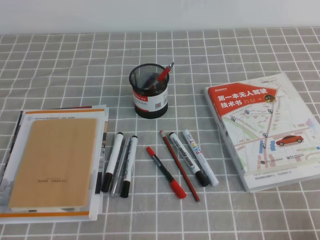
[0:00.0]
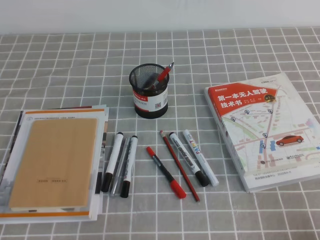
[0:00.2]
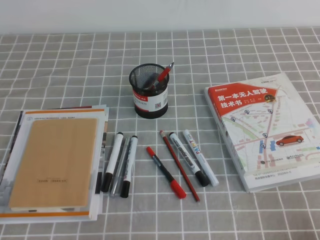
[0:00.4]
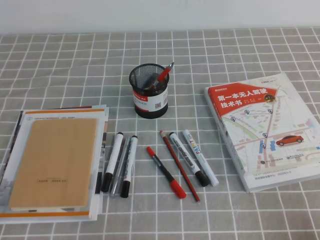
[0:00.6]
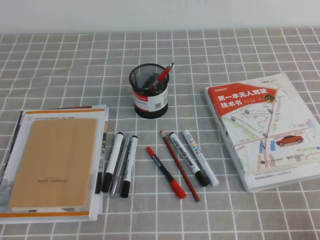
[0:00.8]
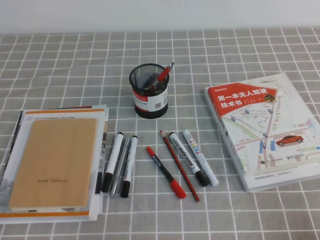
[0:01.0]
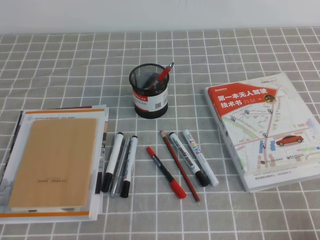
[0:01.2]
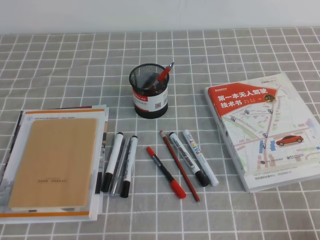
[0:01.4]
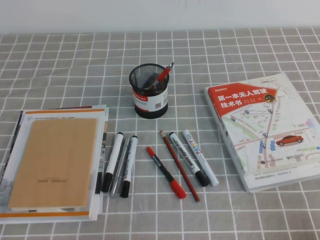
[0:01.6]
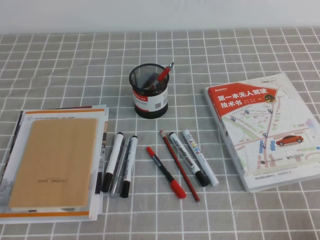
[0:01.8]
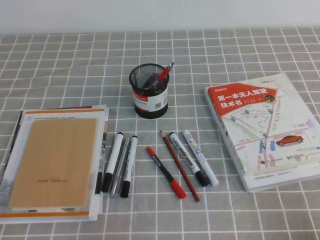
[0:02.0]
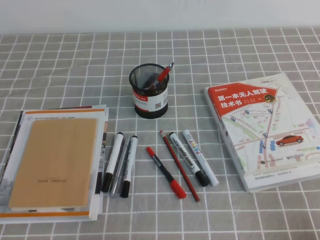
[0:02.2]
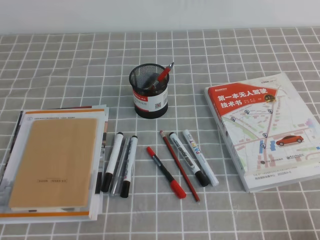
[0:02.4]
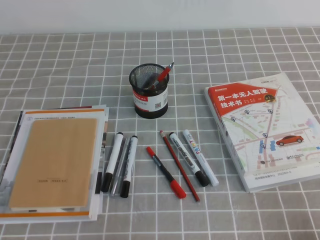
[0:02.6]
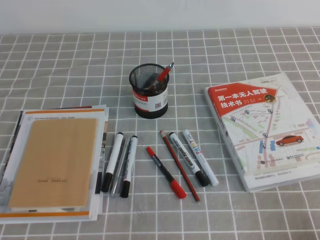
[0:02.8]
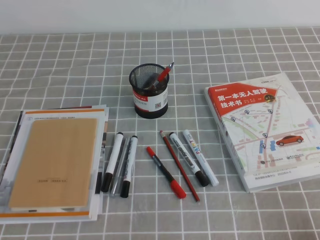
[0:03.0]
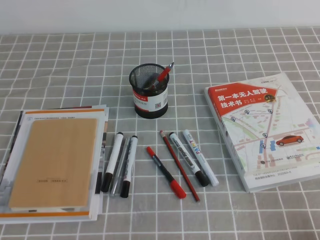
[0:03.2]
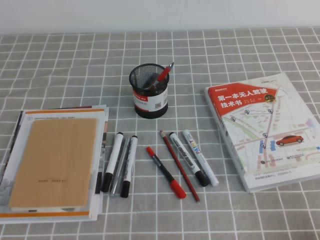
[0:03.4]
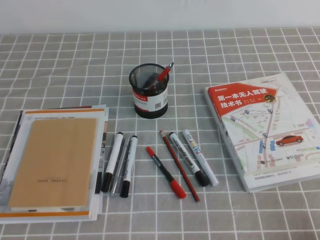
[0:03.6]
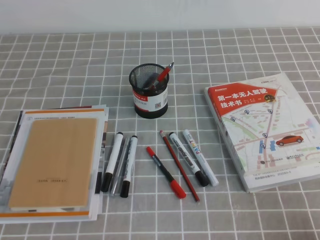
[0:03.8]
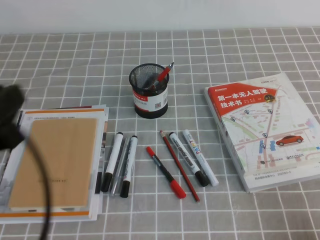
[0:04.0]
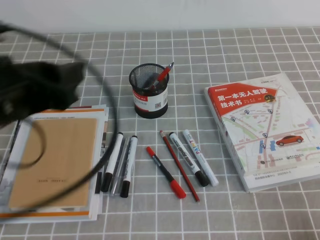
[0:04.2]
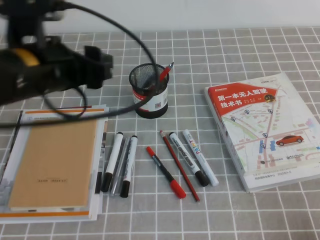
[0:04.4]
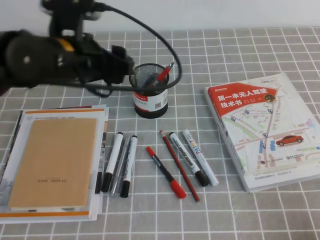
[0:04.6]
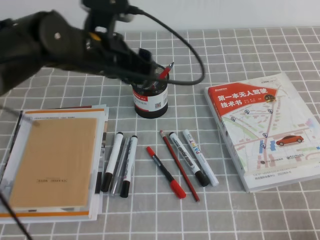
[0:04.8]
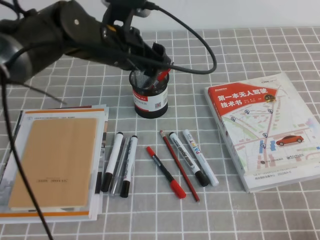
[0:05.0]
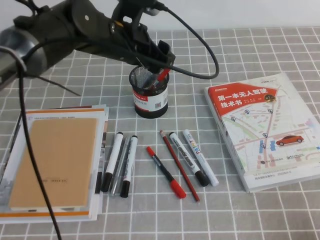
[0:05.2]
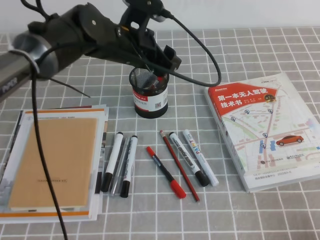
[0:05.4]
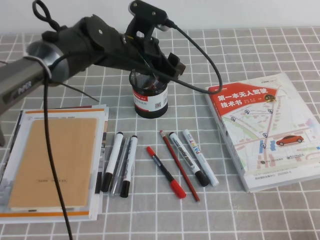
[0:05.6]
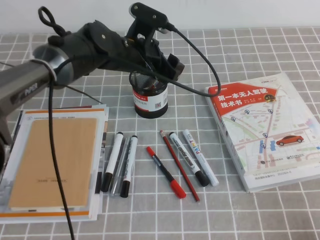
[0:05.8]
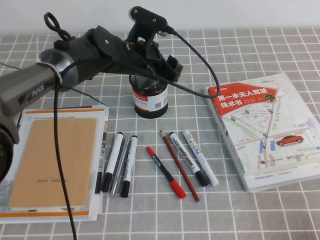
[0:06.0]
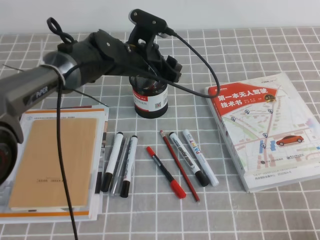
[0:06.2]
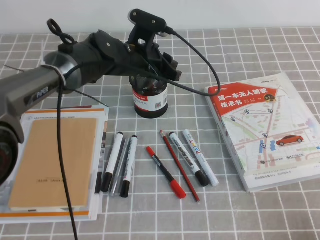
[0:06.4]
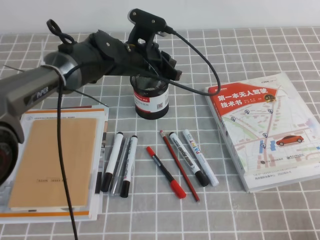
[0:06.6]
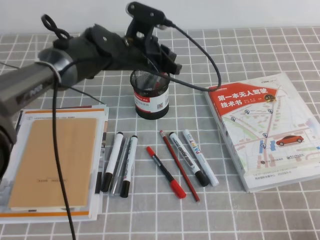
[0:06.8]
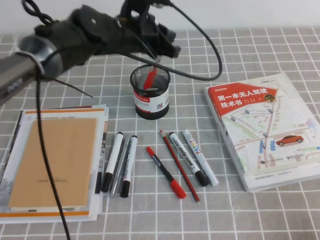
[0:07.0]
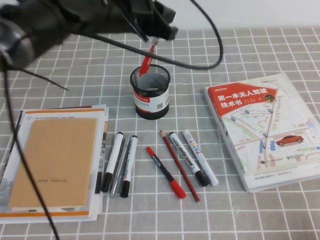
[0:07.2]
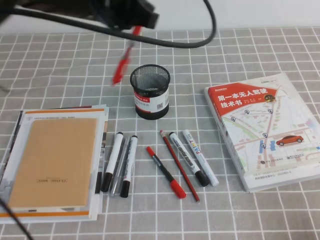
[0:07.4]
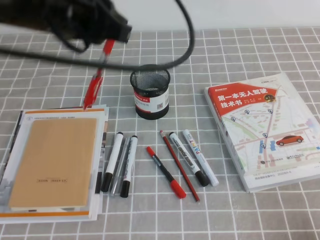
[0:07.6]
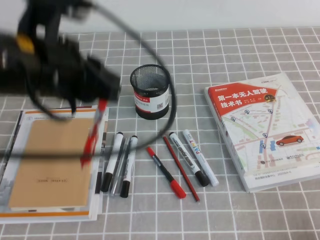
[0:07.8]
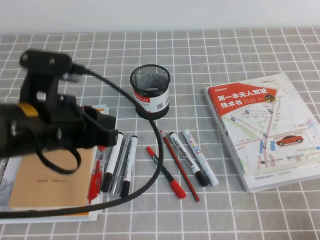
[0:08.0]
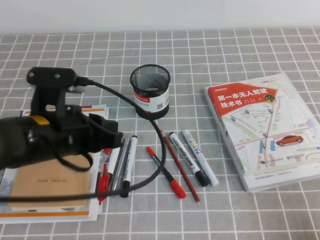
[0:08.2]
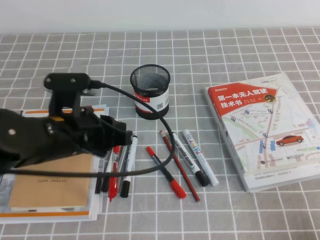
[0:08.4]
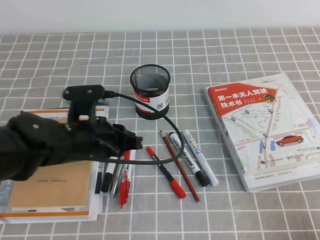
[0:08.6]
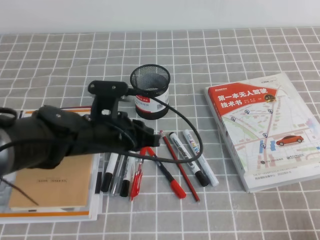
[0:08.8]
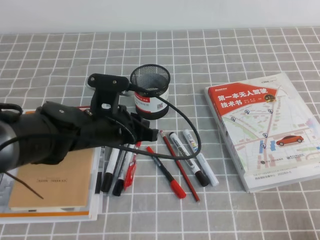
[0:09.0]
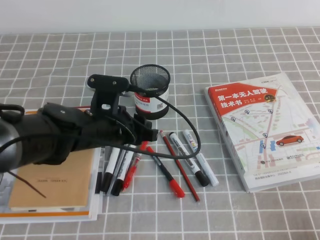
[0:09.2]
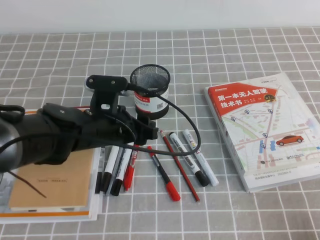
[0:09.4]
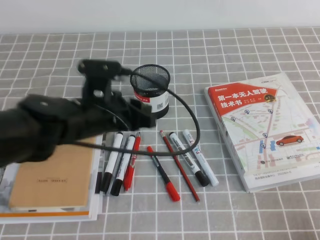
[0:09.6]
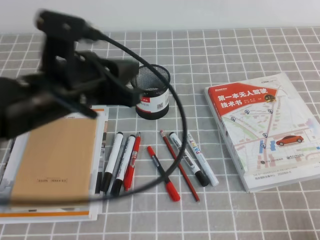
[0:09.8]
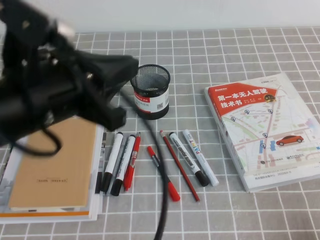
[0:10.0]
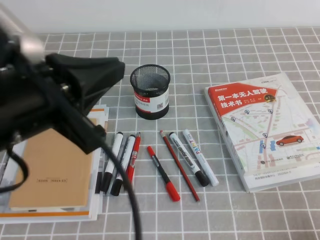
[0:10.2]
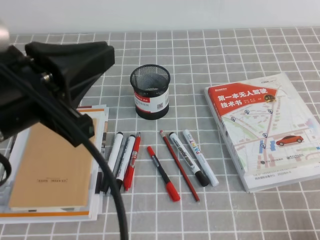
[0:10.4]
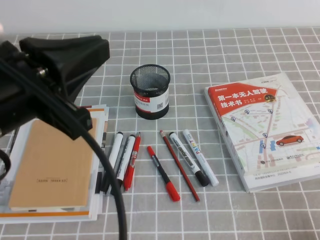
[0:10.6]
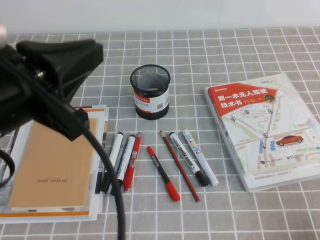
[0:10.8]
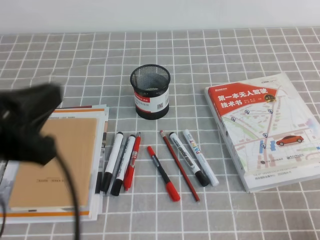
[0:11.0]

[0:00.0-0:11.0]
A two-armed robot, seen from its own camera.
0:00.0 to 0:01.6: Both grippers stay about where they are.
0:03.2 to 0:04.8: The left gripper goes roughly 35 cm forward and to the right, and opens up.
0:04.8 to 0:06.2: The left gripper travels forward, downward and to the right by some 15 cm.
0:06.2 to 0:07.8: The left gripper is displaced backward, upward and to the left by some 25 cm, and closes its fingers.
0:07.8 to 0:09.4: The left gripper heads downward, covering about 15 cm, and opens its fingers.
0:09.4 to 0:11.0: The left gripper is displaced backward, upward and to the left by about 25 cm, and closes.

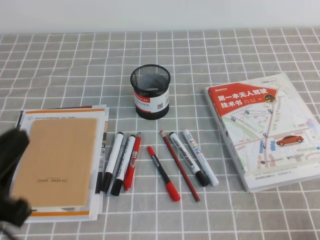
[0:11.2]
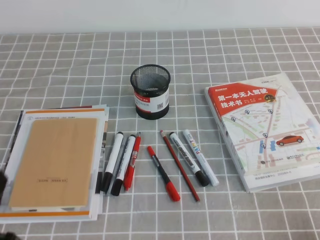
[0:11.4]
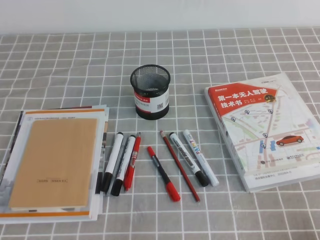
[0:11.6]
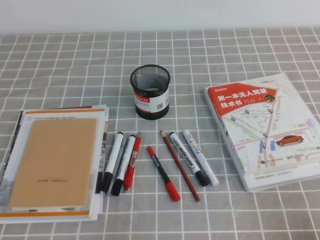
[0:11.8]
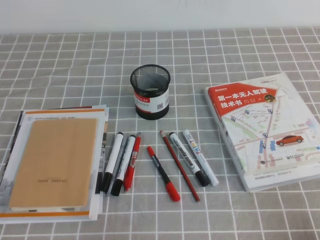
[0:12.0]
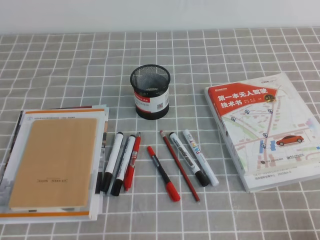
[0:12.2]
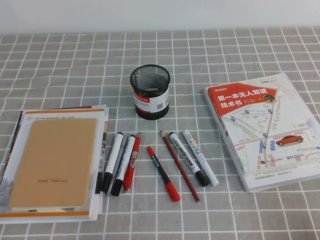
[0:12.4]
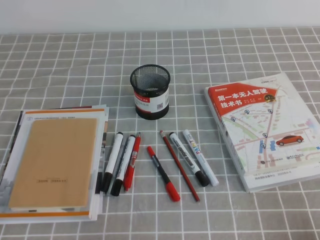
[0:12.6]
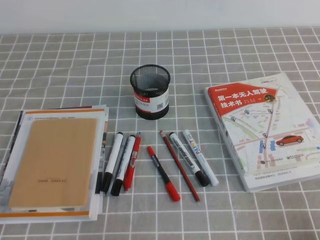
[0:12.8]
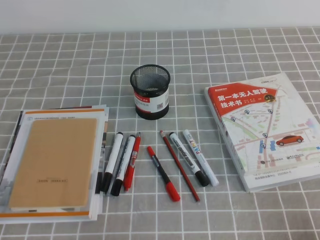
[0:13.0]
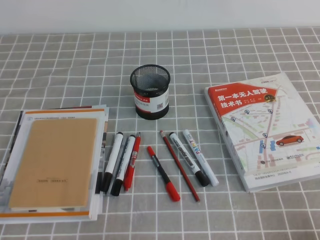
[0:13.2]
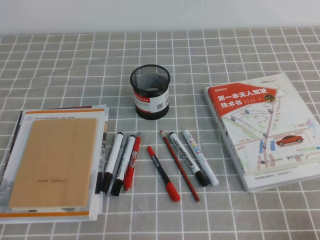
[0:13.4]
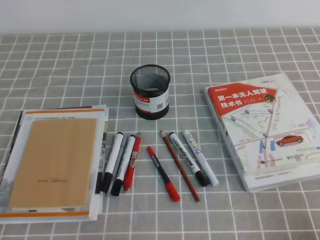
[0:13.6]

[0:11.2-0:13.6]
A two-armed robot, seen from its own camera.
Step, 0:11.2 to 0:13.6: Pick up the pen from the pen holder.
0:11.2 to 0:12.4: The left gripper travels downward by approximately 15 cm.
0:12.4 to 0:13.6: Neither gripper changes place.

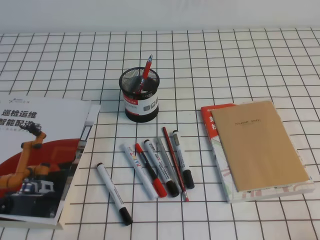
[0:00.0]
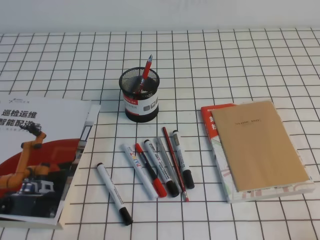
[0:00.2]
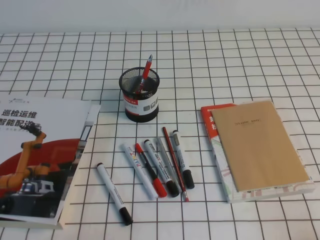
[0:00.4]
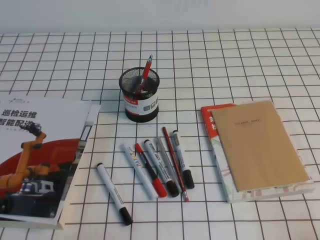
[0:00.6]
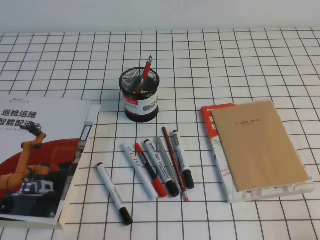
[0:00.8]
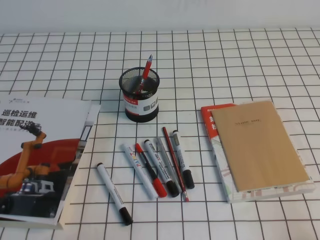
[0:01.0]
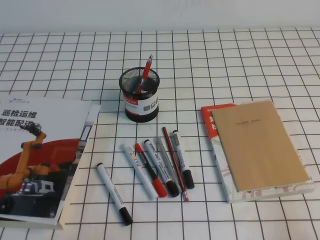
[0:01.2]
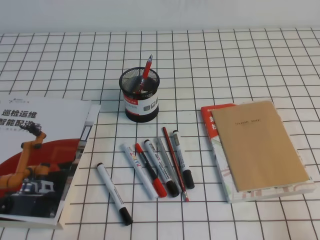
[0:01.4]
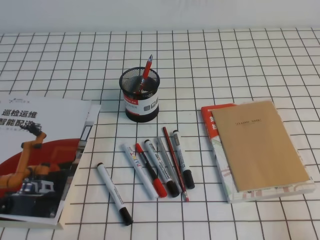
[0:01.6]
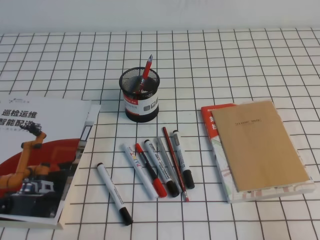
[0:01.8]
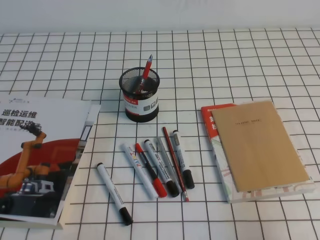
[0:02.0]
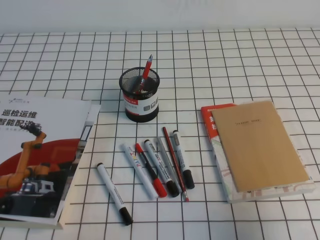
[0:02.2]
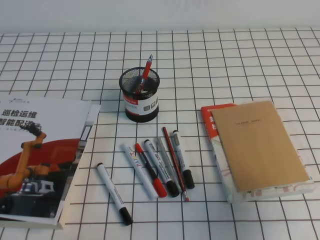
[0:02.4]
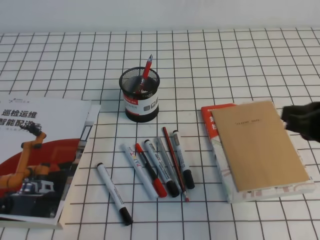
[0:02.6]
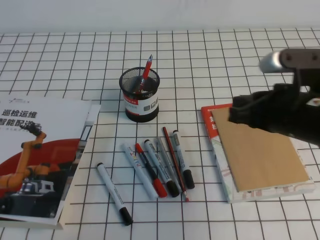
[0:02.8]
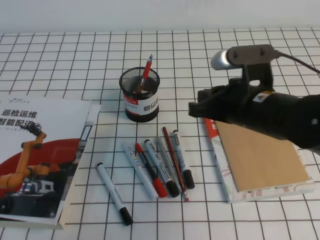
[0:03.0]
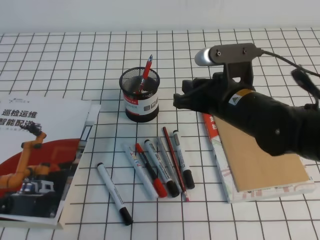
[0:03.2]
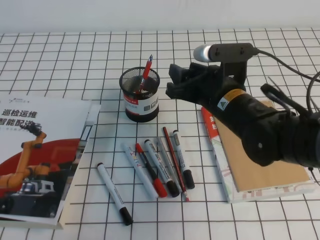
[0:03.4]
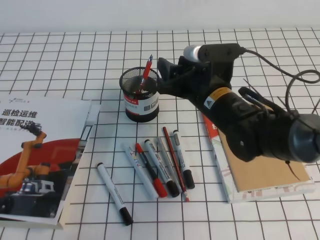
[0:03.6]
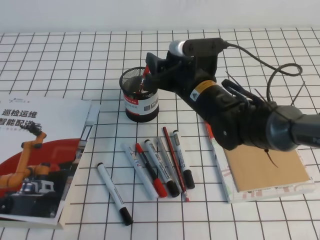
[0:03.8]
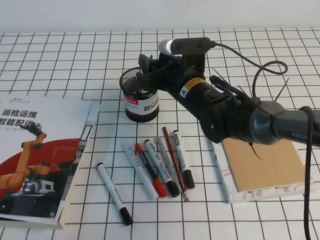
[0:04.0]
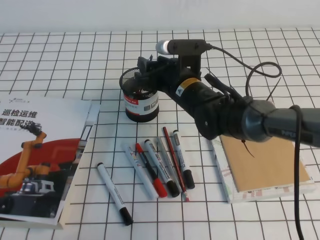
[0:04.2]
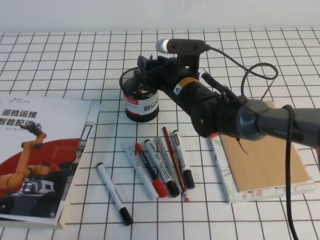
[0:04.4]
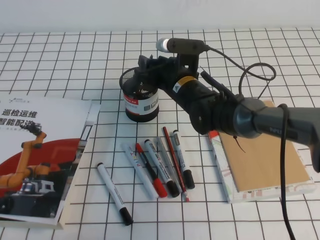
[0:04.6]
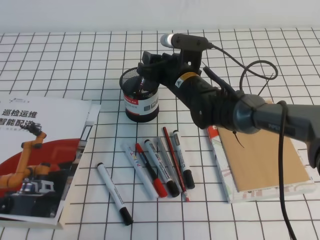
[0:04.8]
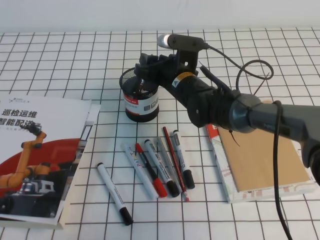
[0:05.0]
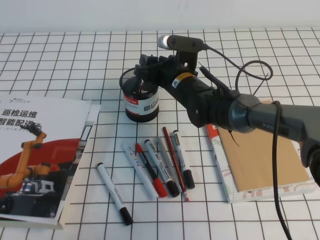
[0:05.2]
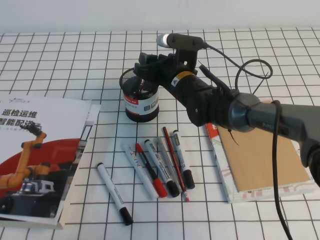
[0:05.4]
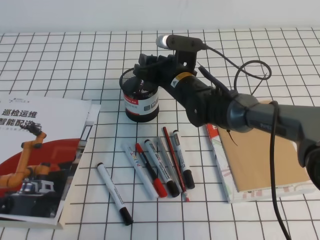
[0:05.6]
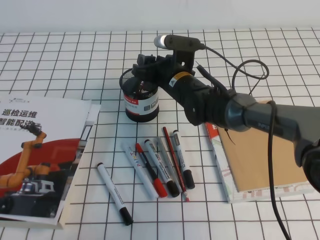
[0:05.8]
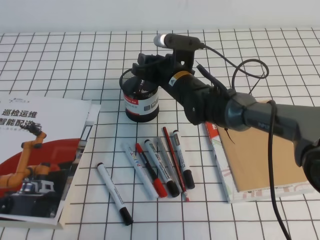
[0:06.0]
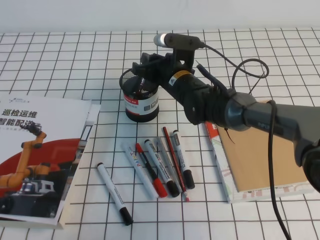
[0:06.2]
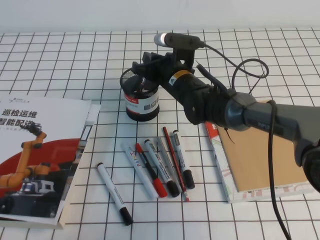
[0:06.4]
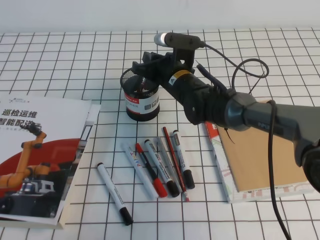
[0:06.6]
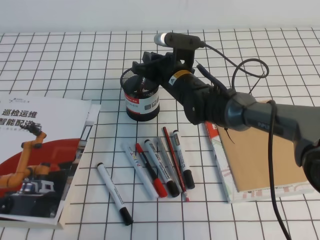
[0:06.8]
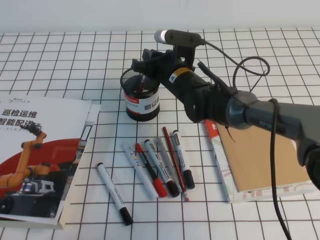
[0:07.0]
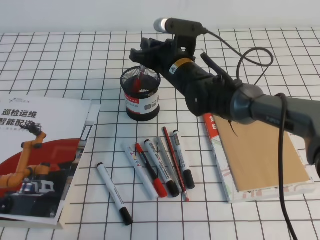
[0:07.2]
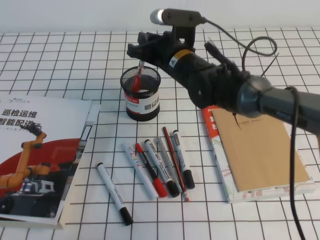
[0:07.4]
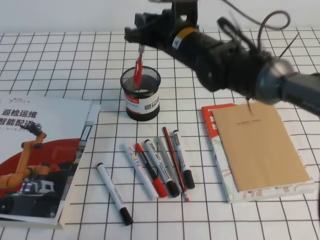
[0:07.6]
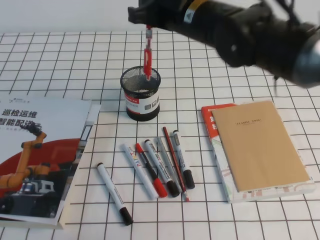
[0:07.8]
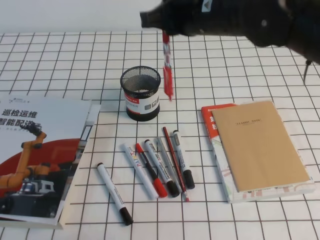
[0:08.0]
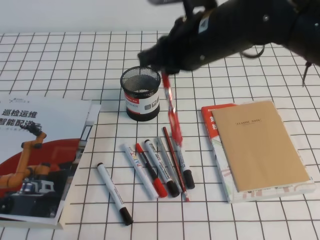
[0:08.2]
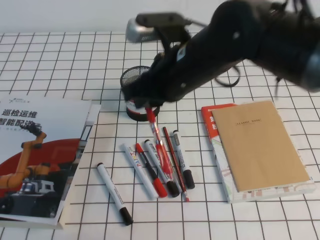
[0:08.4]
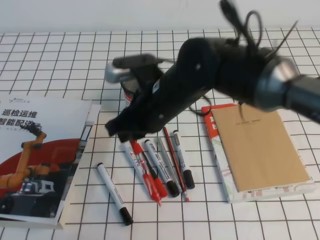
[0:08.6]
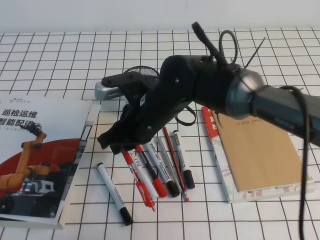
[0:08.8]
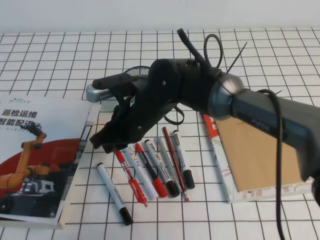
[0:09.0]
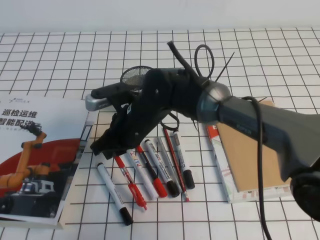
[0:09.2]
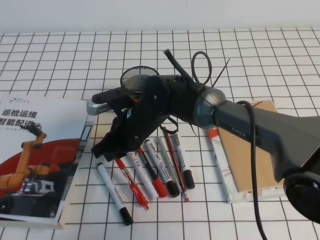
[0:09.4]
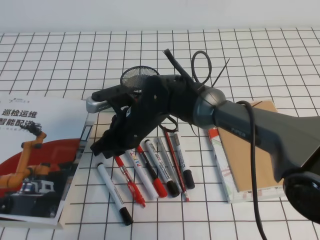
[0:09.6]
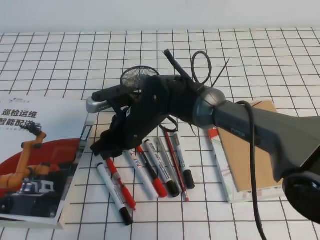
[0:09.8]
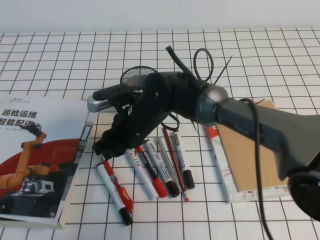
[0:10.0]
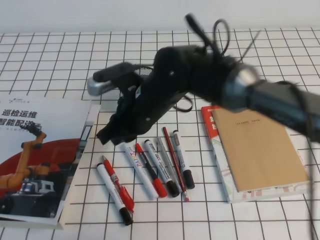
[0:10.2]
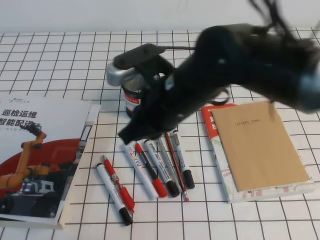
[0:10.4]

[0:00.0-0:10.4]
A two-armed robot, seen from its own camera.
0:01.4 to 0:03.0: The right gripper shifts some 30 cm forward and to the left.
0:03.0 to 0:04.4: The right gripper moves forward, to the left and downward, some 20 cm, and opens.
0:04.4 to 0:06.0: The grippers stay close to where they were, moving slightly.
0:06.0 to 0:07.4: The right gripper shifts approximately 5 cm upward, and closes.
0:07.4 to 0:09.0: The right gripper shifts approximately 10 cm backward and to the left, and moves some 10 cm upward and comes back.
0:09.0 to 0:10.4: The right gripper heads upward and to the right, covering some 10 cm, and opens, then closes again.
